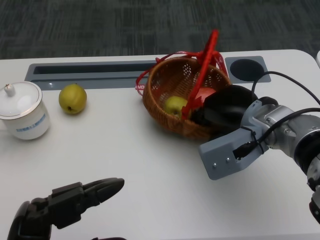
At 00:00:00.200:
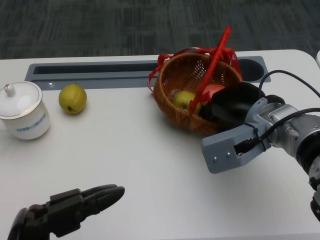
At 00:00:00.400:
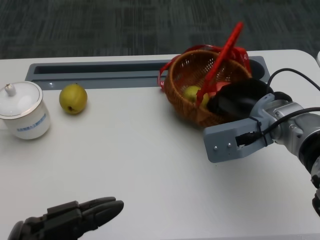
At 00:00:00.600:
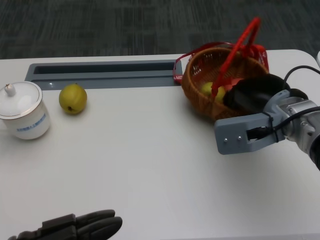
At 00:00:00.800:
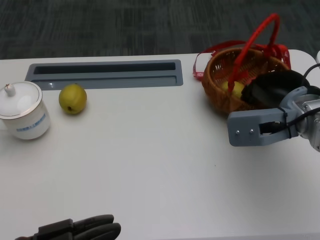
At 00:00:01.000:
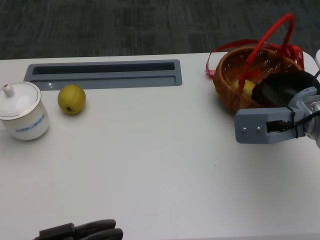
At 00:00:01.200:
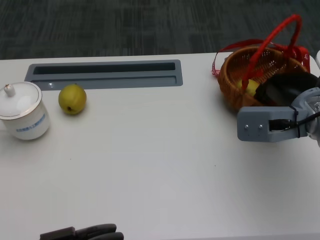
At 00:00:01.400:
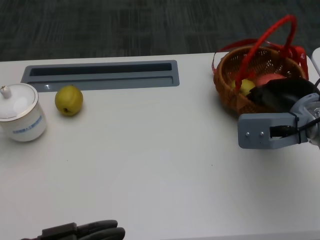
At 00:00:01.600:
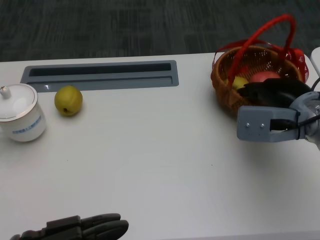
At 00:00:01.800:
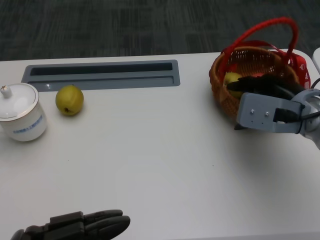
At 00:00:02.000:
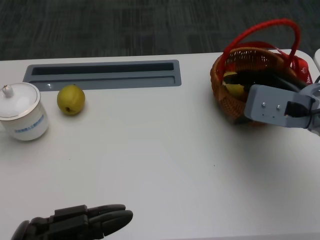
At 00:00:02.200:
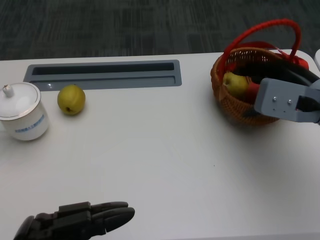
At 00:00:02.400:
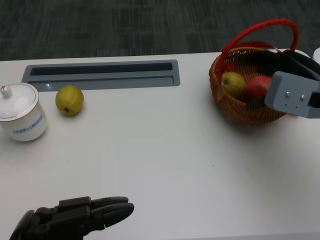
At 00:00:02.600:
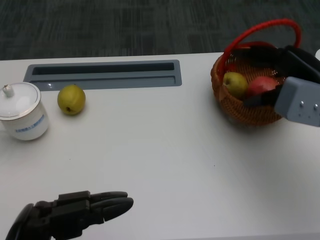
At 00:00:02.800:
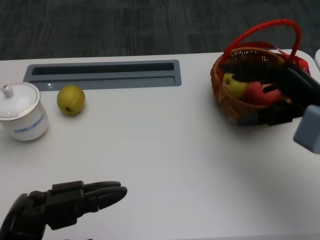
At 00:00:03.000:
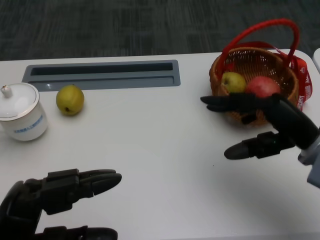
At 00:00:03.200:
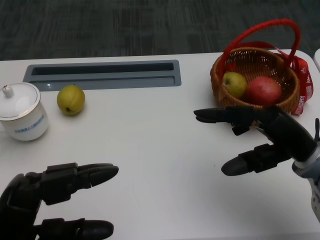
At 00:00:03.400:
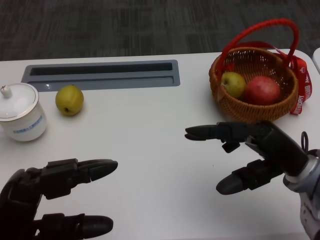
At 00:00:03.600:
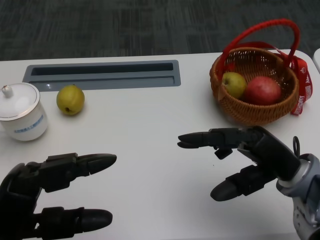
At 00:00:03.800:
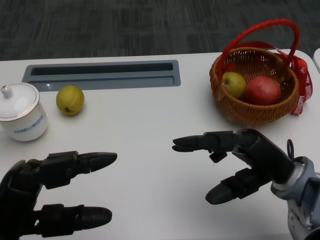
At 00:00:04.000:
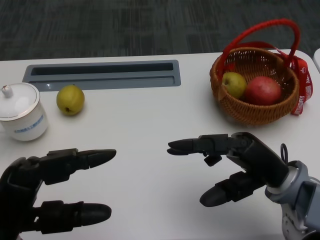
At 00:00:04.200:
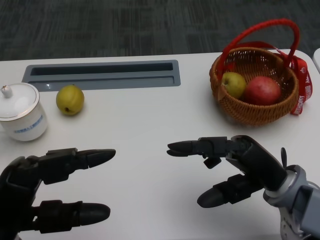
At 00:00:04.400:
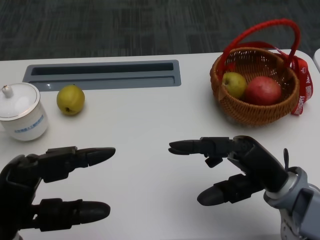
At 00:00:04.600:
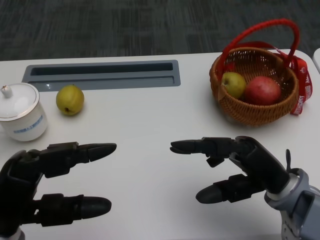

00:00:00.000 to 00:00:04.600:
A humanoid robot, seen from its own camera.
00:00:00.000 to 00:00:01.600: The right hand goes some 5 cm to the right; the left hand moves backward, some 5 cm.
00:00:01.600 to 00:00:03.000: The left hand moves forward, roughly 5 cm.
00:00:03.000 to 00:00:04.600: The right hand changes place by about 10 cm.
